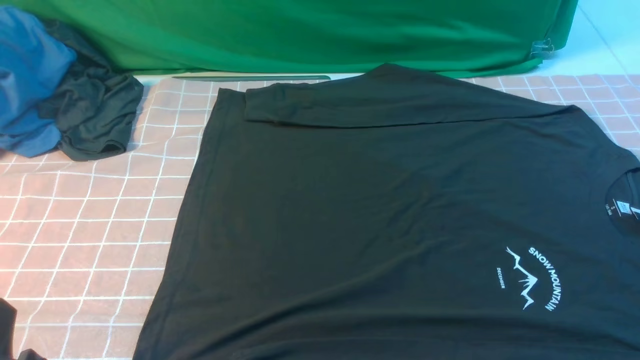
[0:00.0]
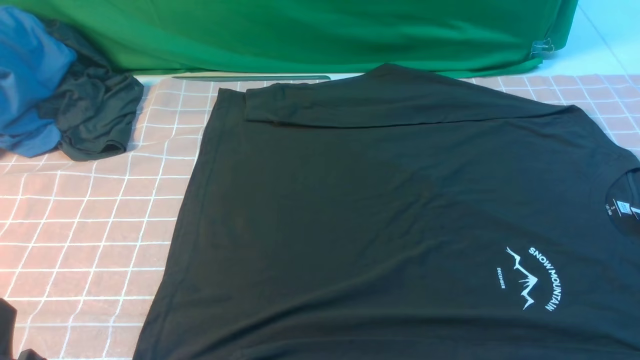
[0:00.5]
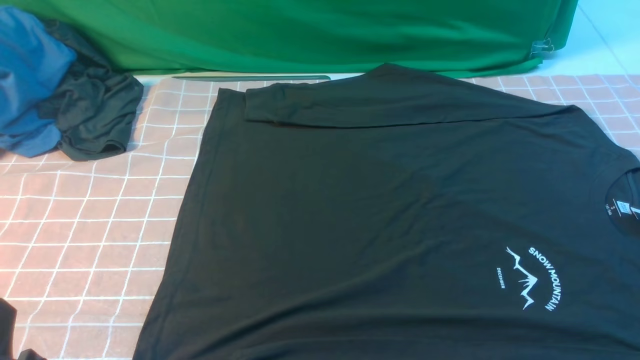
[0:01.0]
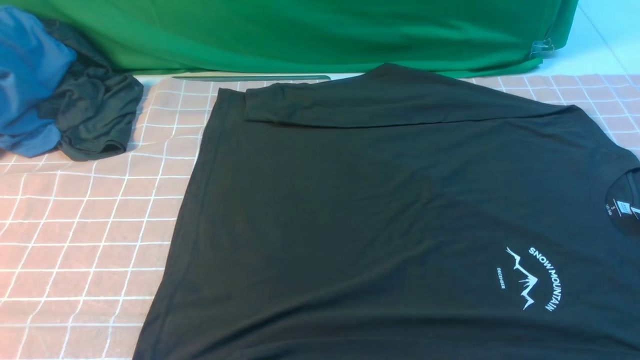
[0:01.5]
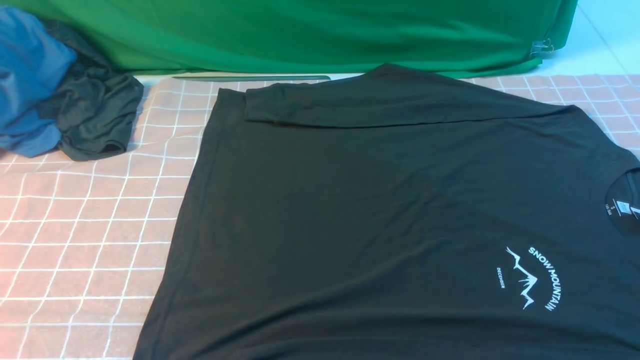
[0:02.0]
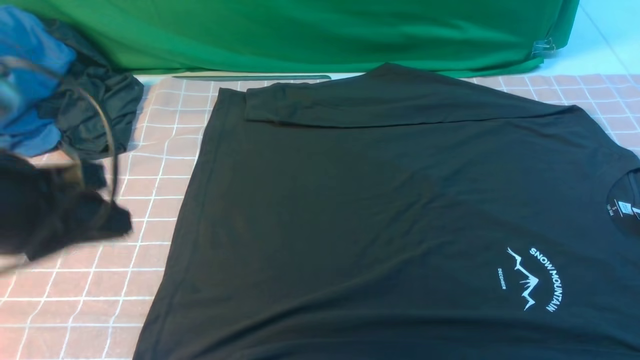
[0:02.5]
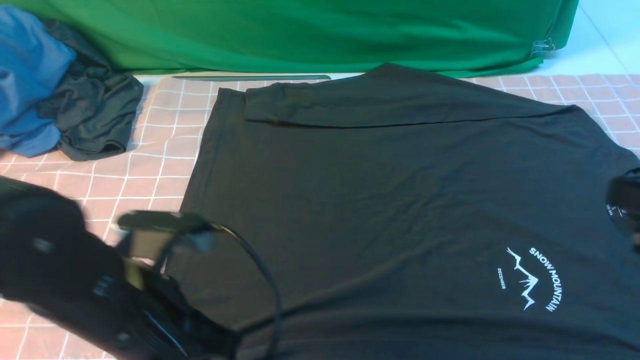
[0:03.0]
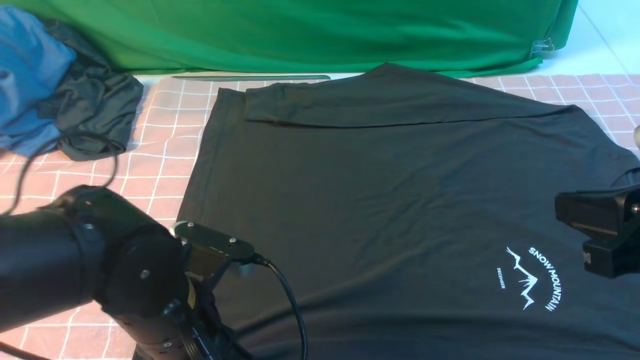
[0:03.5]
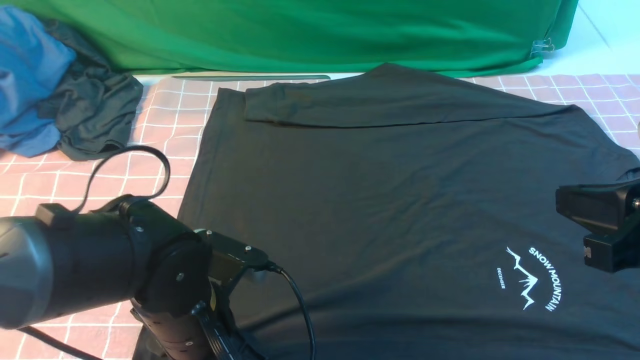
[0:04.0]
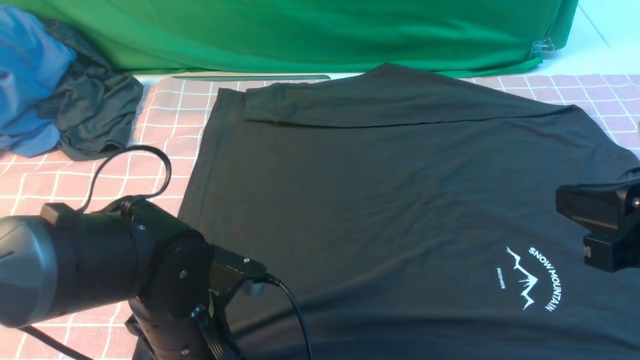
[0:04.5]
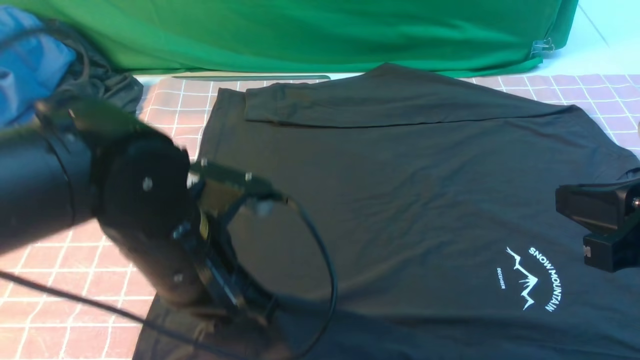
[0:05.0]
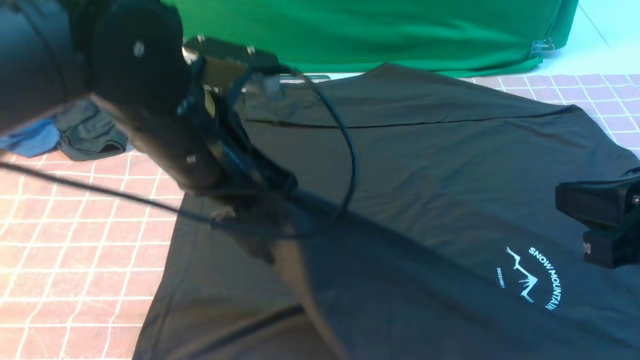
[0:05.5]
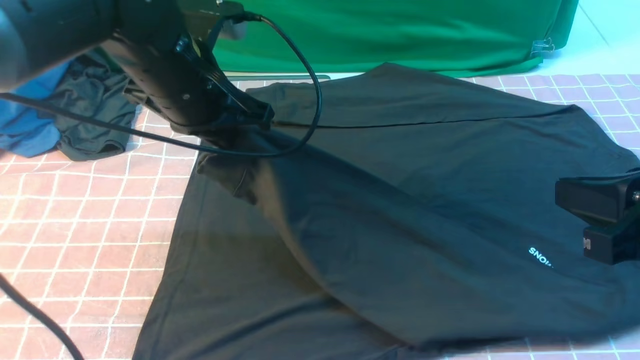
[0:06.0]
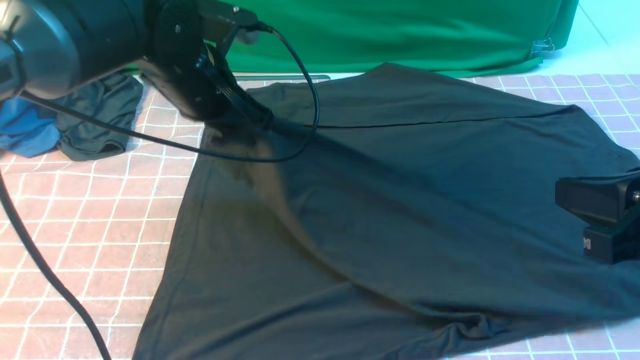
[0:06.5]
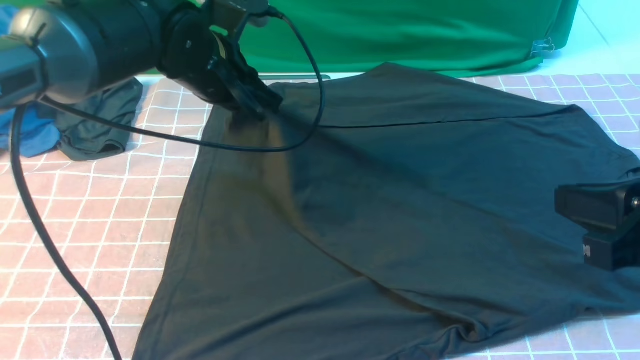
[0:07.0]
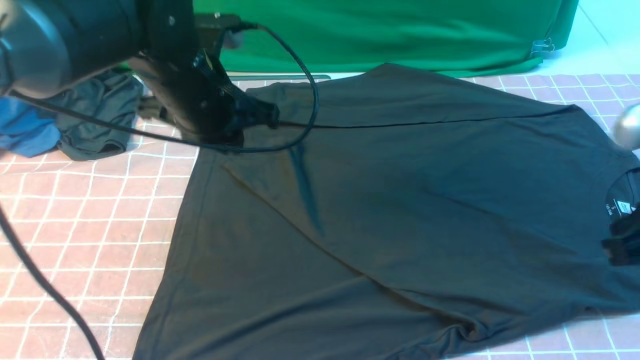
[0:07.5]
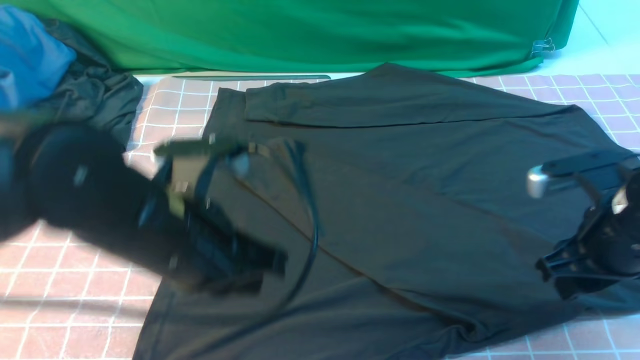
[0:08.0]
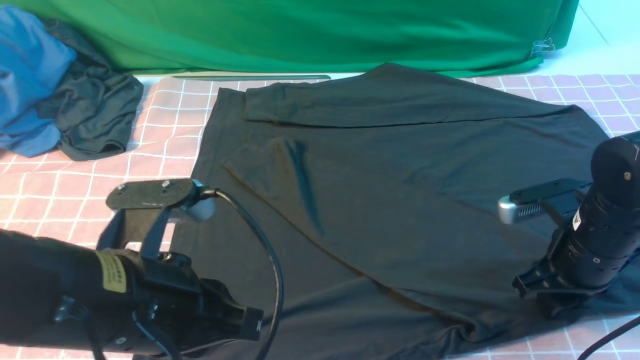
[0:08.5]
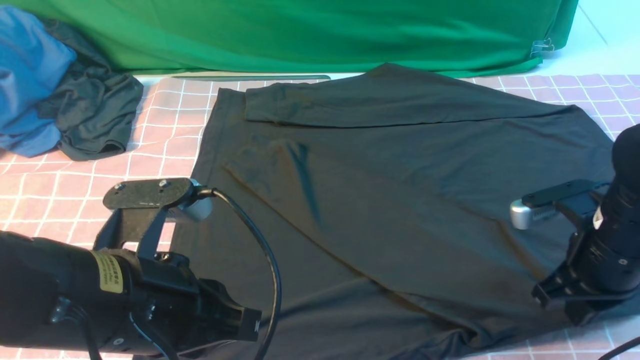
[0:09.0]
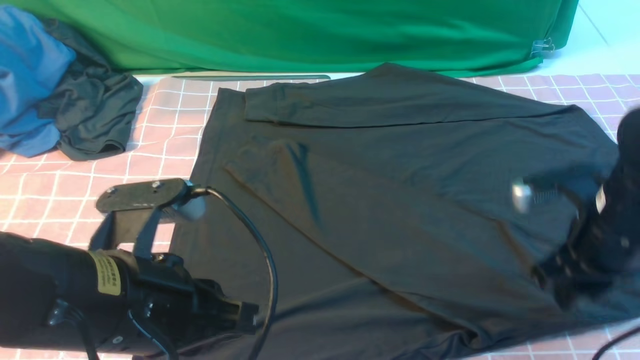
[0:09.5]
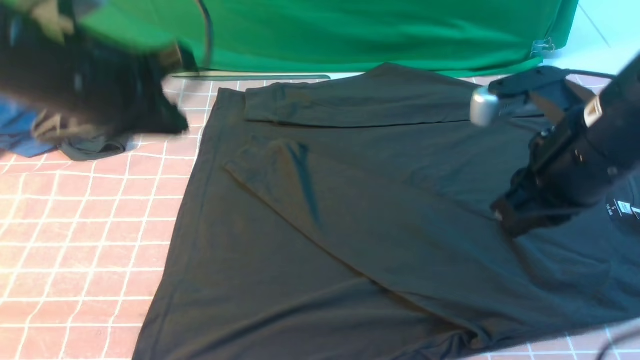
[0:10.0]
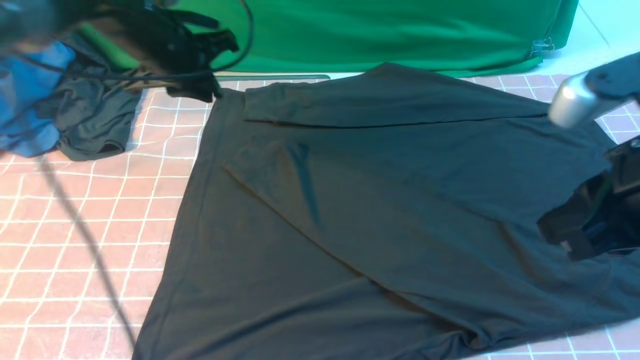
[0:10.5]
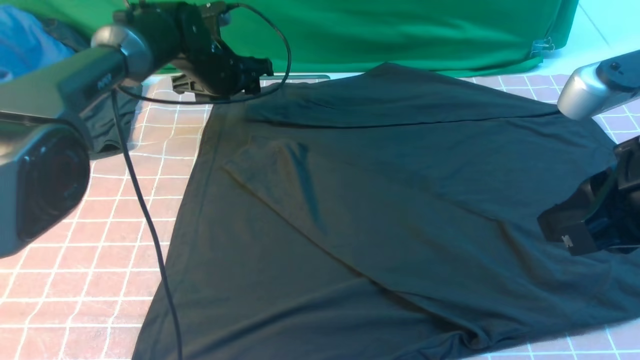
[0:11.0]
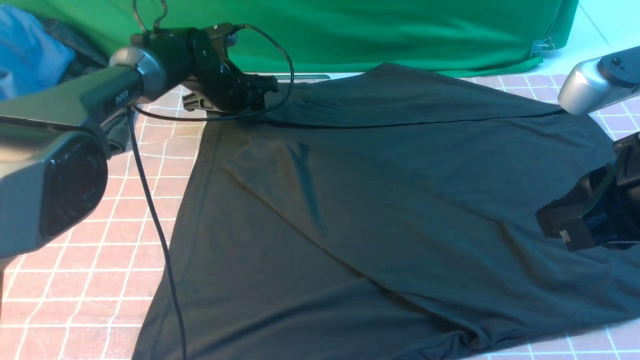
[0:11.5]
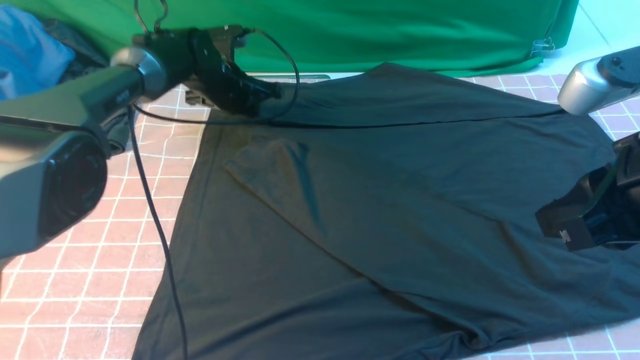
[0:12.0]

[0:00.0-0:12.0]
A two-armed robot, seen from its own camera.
Step, 0:00.0 to 0:04.5: use the left arm to clamp the cuff closest to it.
Step, 0:05.0 to 0:07.0: use the left arm to drag and place the cuff at the centered position on the left edge of the fabric.
Step, 0:07.5 to 0:12.0: use the left arm to clamp the cuff farthest from it.
0:02.0 to 0:04.0: The right gripper travels forward, upward and to the left by some 15 cm, and closes. Meanwhile the left gripper is displaced downward, to the right and forward by some 25 cm, and opens.
0:04.0 to 0:06.0: The left gripper is displaced forward and upward by some 20 cm, and closes.
0:06.0 to 0:08.0: The left gripper moves backward, some 15 cm; the right gripper is displaced downward and forward by roughly 15 cm, and opens up.
0:08.0 to 0:10.0: The left gripper goes roughly 15 cm upward, forward and to the left. The right gripper goes about 10 cm upward, and closes.
0:10.0 to 0:12.0: The left gripper goes some 30 cm forward and downward, and opens and closes again; the right gripper is displaced backward by approximately 5 cm.

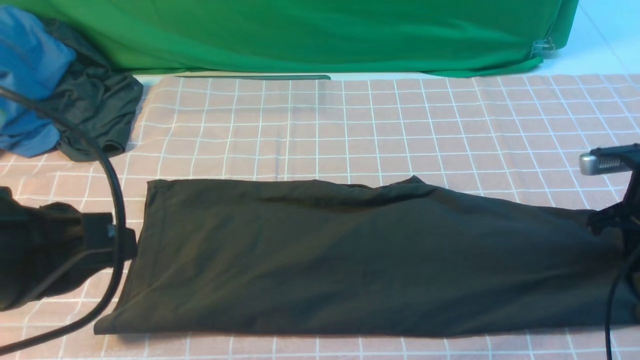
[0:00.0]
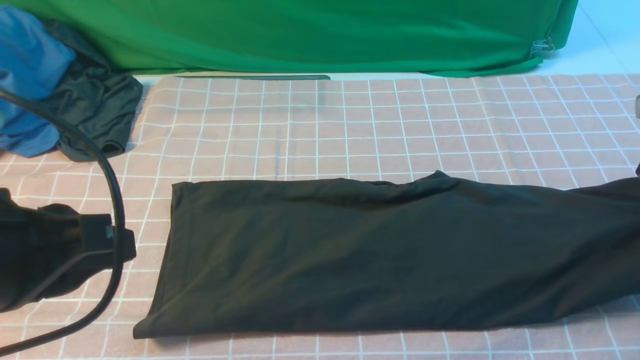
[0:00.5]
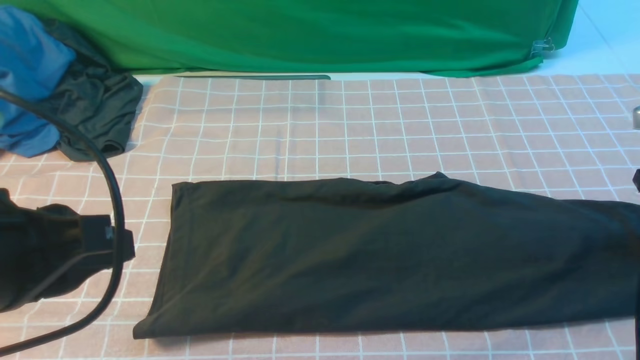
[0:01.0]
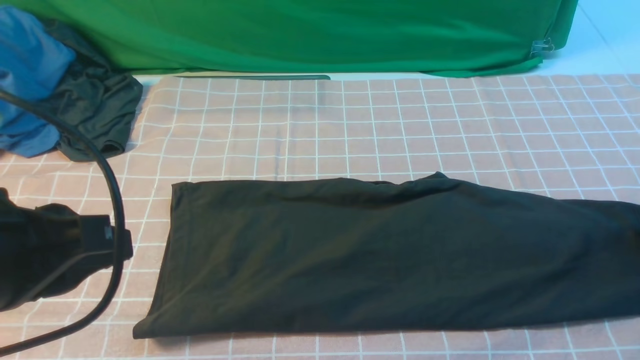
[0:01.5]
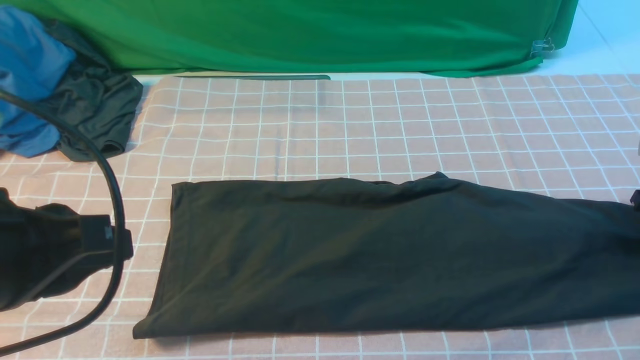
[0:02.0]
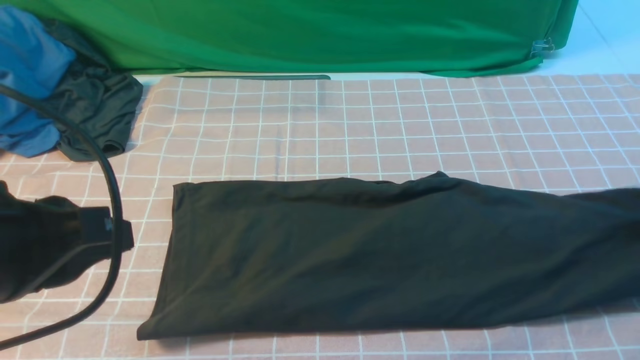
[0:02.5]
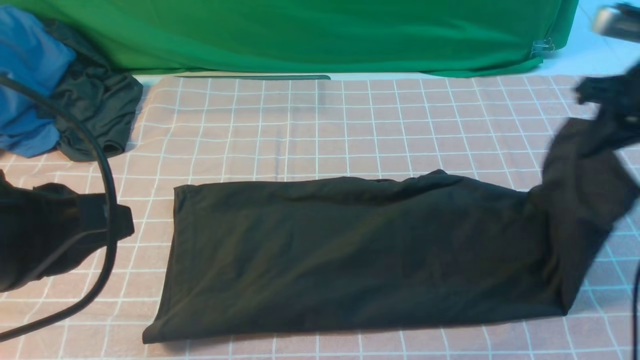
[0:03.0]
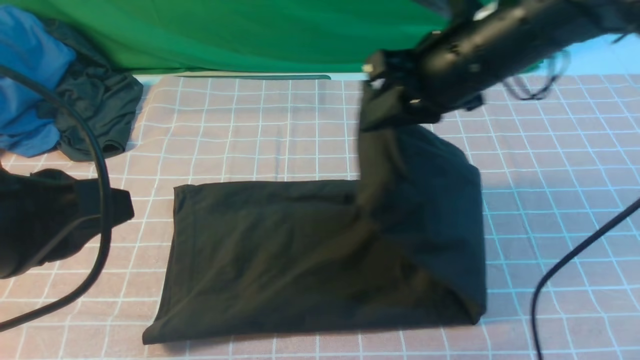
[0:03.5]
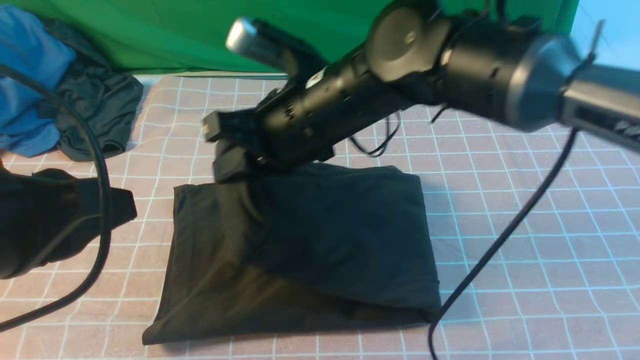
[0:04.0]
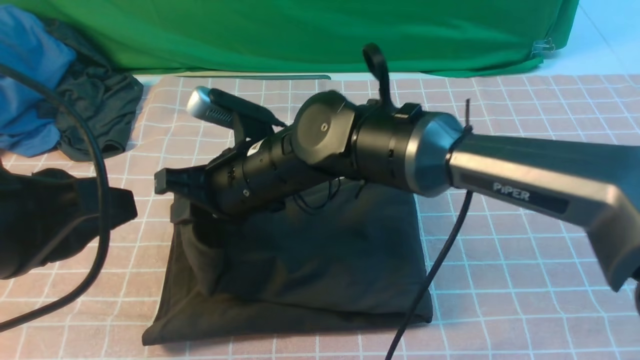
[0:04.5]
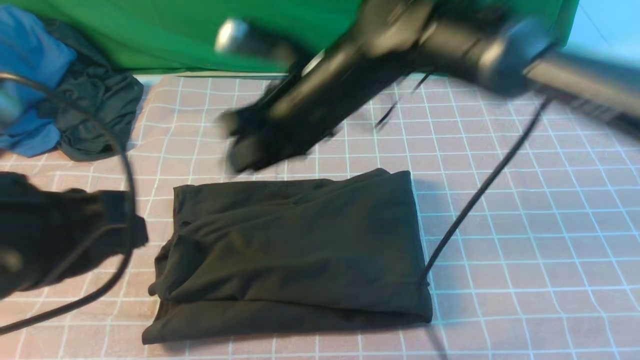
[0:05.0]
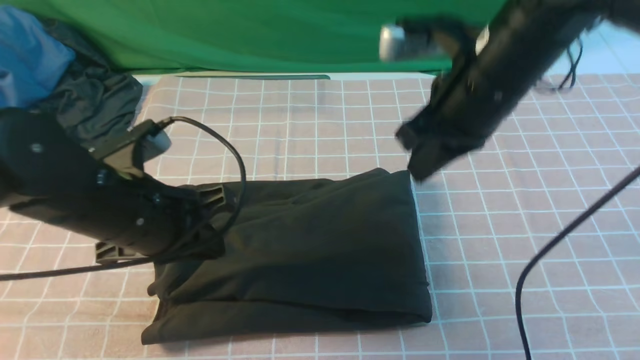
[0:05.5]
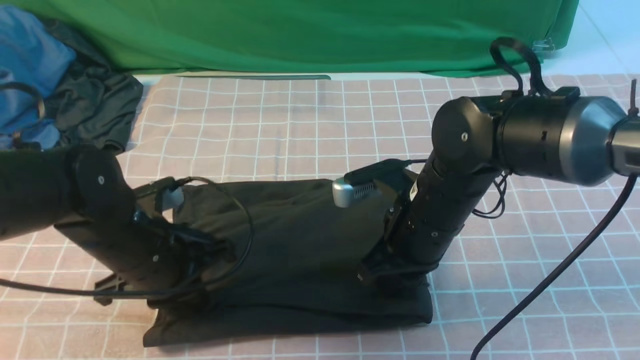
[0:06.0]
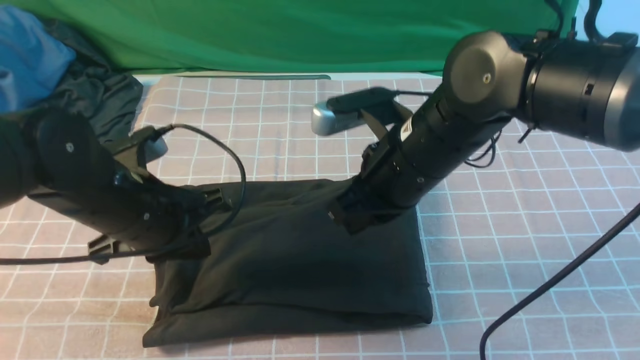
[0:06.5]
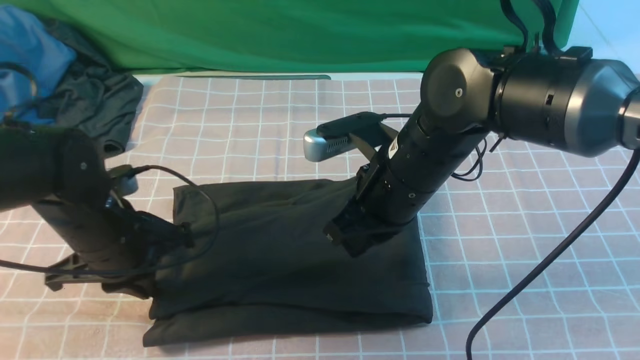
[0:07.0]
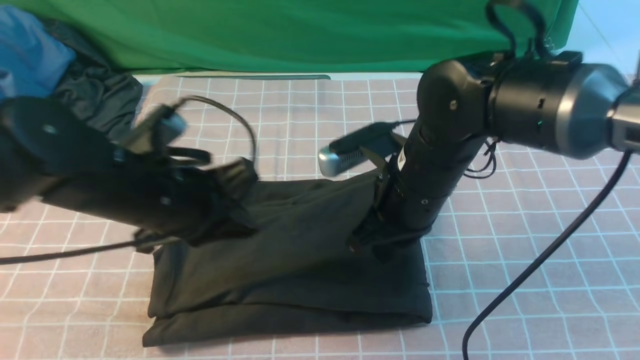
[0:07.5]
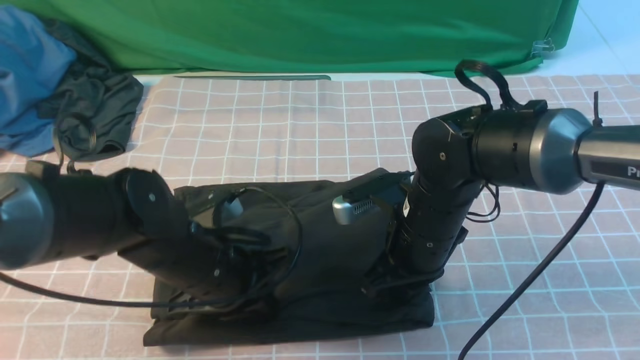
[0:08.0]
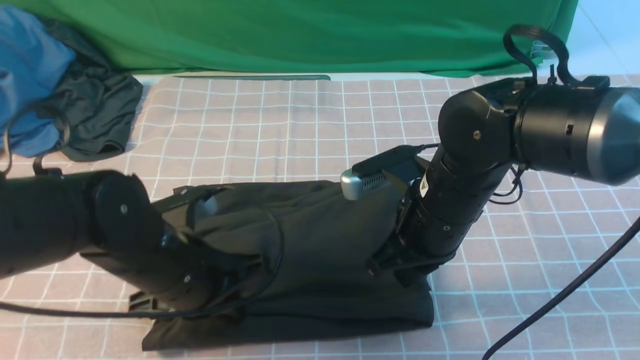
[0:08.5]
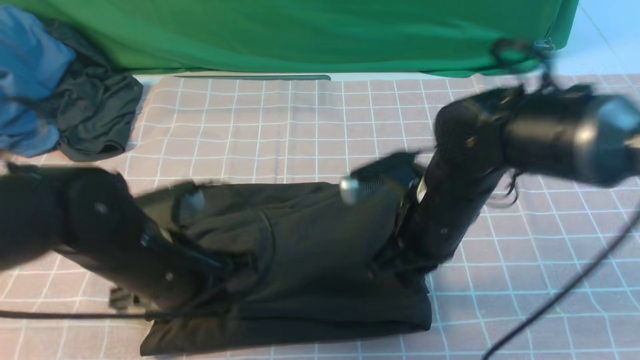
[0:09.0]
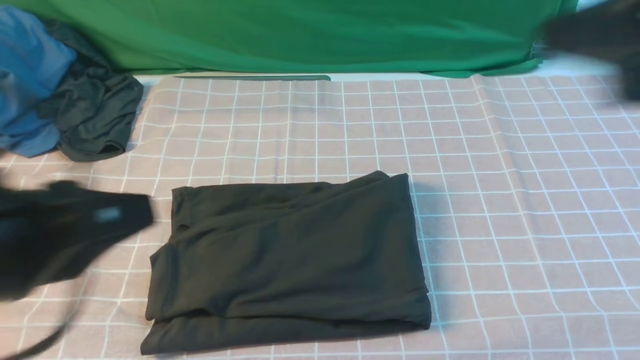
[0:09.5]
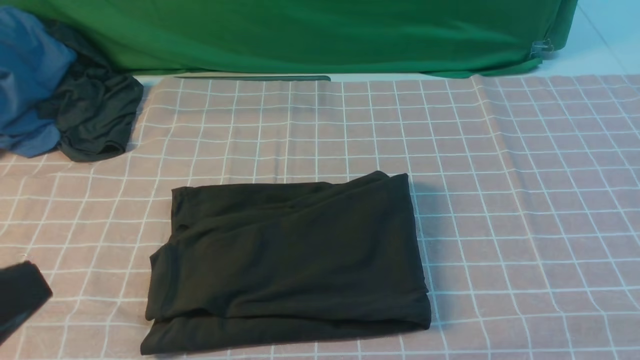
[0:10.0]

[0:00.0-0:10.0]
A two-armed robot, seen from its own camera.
Step, 0:00.0 to 0:04.5: use the right arm to drag the right edge of the fabric to the left and folds it over the left edge.
0:00.0 to 0:02.0: The right gripper travels to the right by about 5 cm, moves approximately 5 cm upward and comes back, and opens.
0:02.0 to 0:04.0: The right gripper goes some 40 cm to the left, and closes.
0:04.0 to 0:06.0: The right gripper is displaced to the right and downward by roughly 15 cm. The left gripper goes about 20 cm downward and forward.
0:06.0 to 0:08.0: The left gripper heads to the right, covering approximately 5 cm.
0:08.0 to 0:10.0: The right gripper goes some 40 cm backward, upward and to the right. Meanwhile the left gripper shifts approximately 30 cm backward, upward and to the left.
